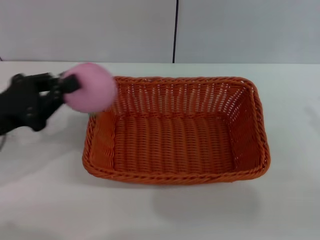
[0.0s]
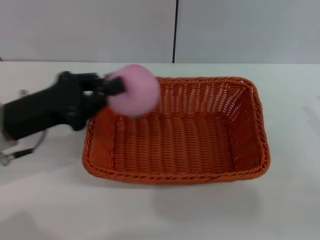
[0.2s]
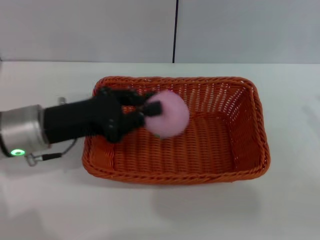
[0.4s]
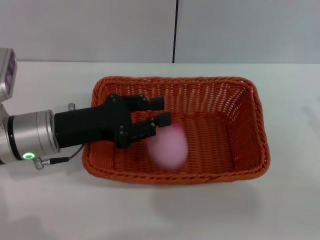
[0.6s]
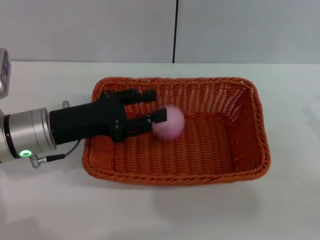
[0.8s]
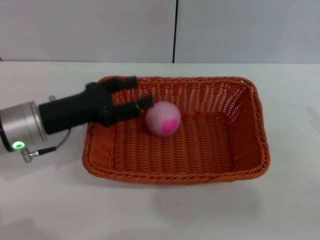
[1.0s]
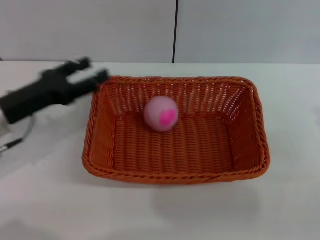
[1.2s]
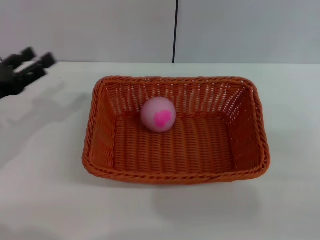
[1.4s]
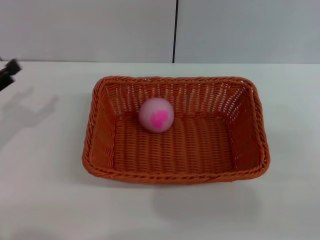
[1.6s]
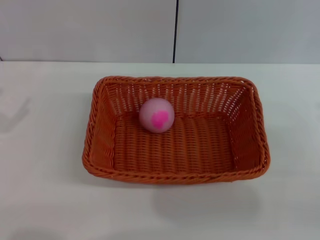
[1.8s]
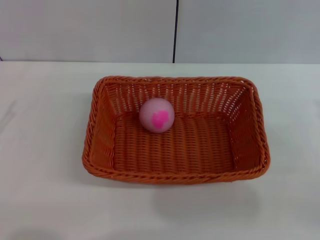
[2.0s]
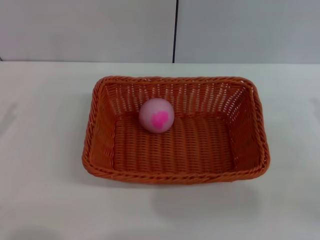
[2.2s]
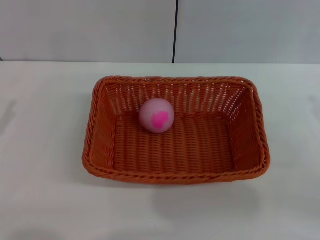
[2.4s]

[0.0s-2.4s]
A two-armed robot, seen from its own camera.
Step, 0.0s to 0.8s: Place the peach into the basket with the left gripper.
0.0s to 1.2s: The left gripper reaches approximately 10 cm to the right, then returns, and opens its fingers.
1.2s to 2.4s: The left gripper heads to the left and backward, covering approximately 15 cm.
